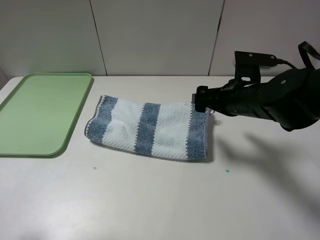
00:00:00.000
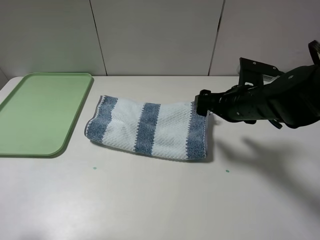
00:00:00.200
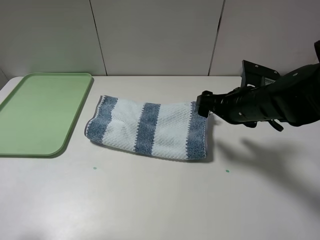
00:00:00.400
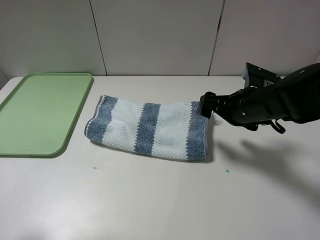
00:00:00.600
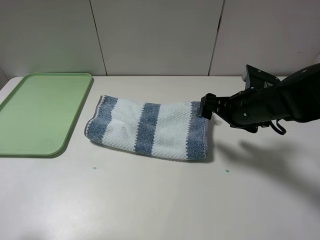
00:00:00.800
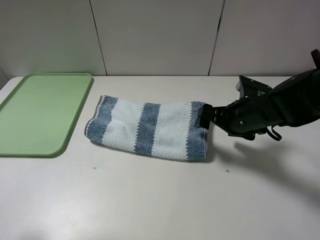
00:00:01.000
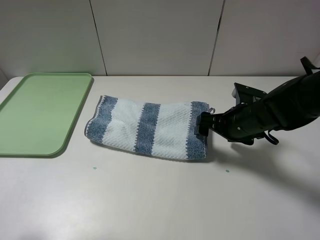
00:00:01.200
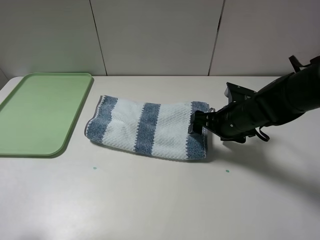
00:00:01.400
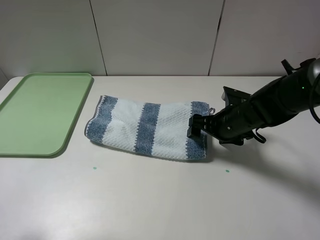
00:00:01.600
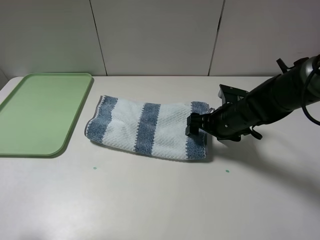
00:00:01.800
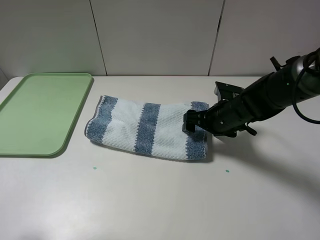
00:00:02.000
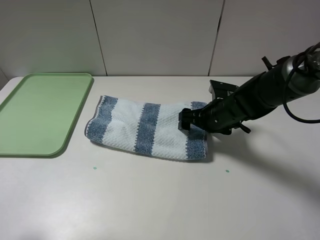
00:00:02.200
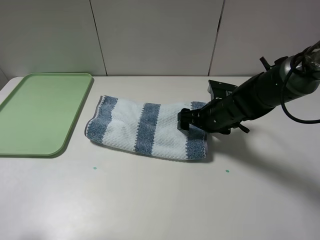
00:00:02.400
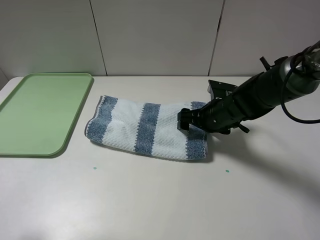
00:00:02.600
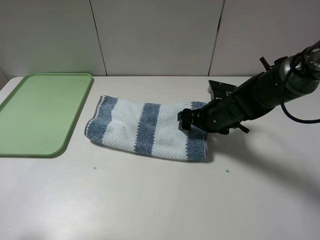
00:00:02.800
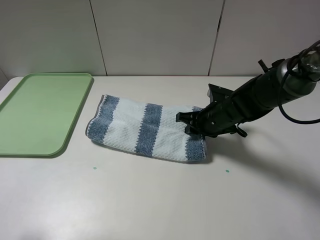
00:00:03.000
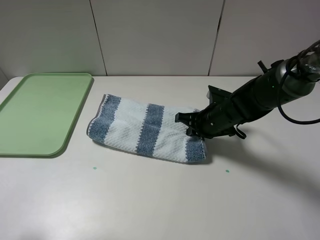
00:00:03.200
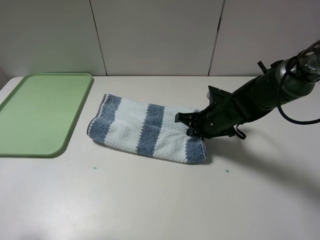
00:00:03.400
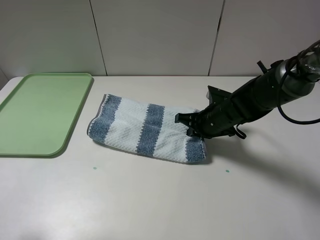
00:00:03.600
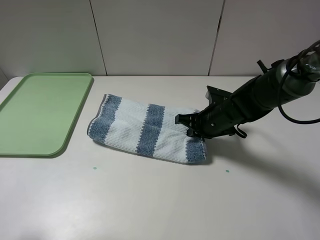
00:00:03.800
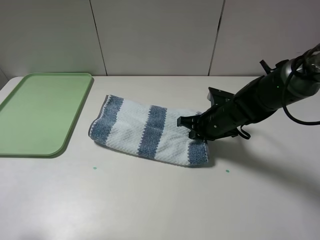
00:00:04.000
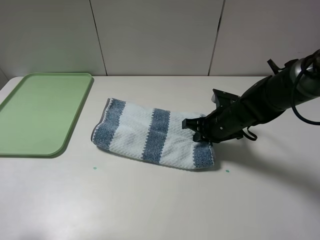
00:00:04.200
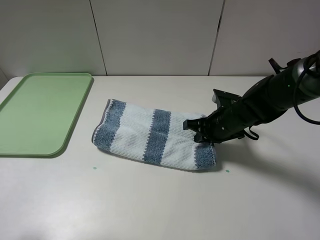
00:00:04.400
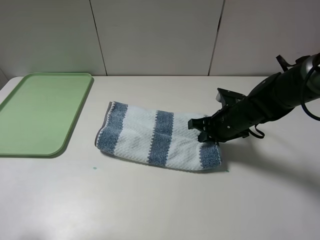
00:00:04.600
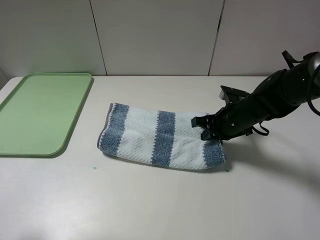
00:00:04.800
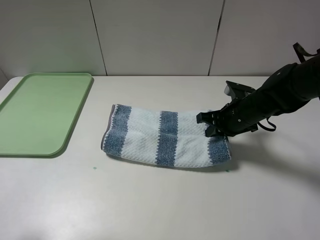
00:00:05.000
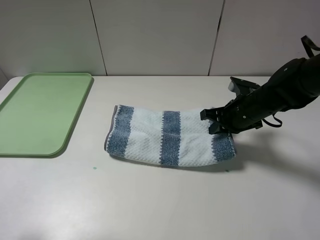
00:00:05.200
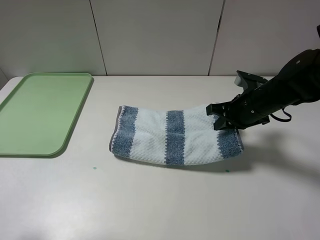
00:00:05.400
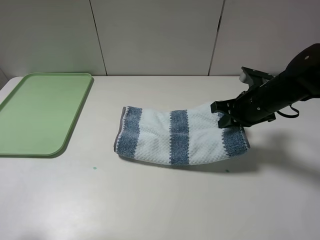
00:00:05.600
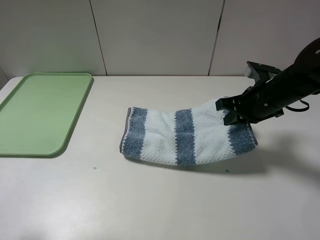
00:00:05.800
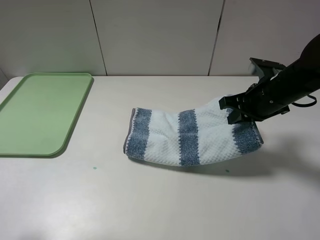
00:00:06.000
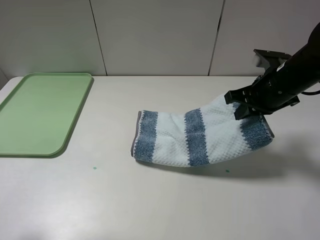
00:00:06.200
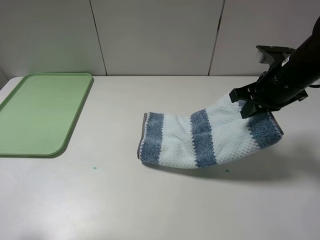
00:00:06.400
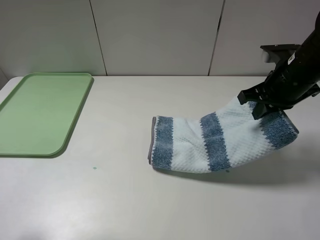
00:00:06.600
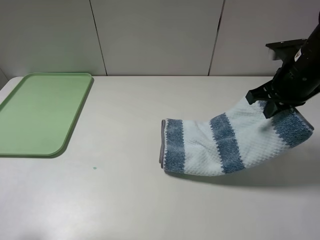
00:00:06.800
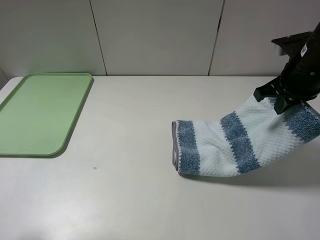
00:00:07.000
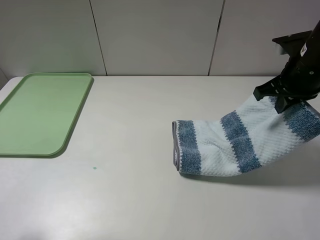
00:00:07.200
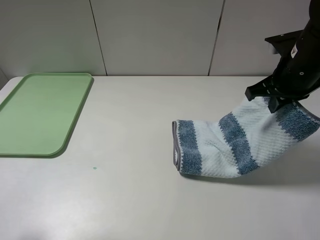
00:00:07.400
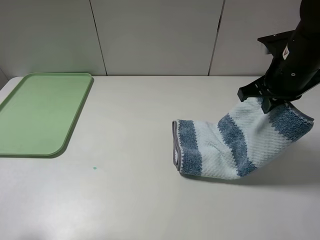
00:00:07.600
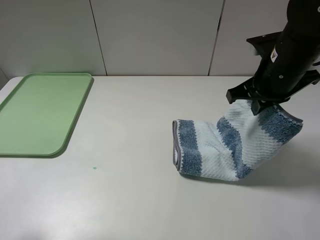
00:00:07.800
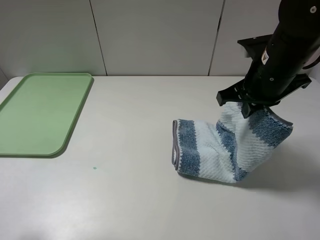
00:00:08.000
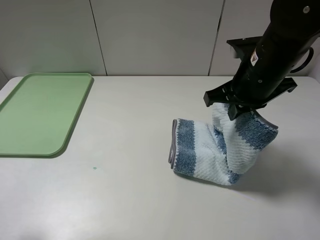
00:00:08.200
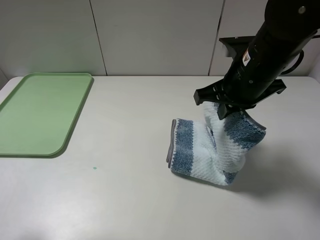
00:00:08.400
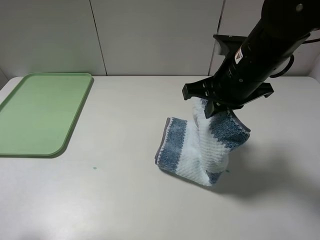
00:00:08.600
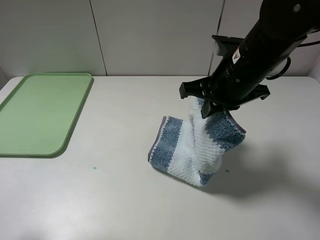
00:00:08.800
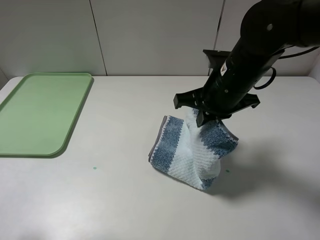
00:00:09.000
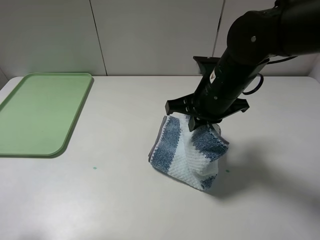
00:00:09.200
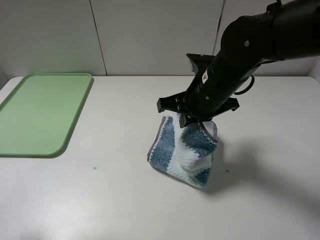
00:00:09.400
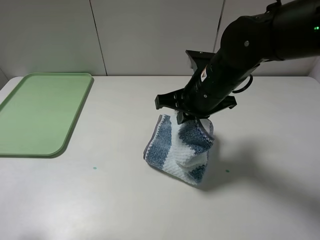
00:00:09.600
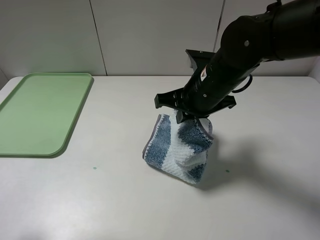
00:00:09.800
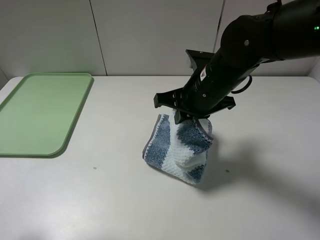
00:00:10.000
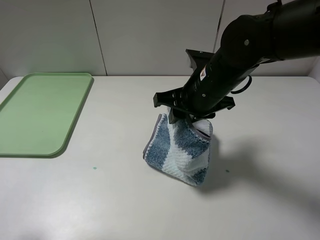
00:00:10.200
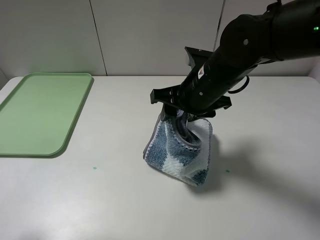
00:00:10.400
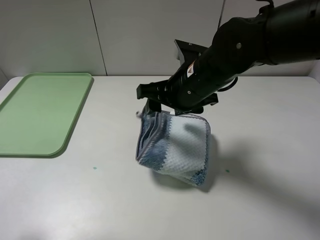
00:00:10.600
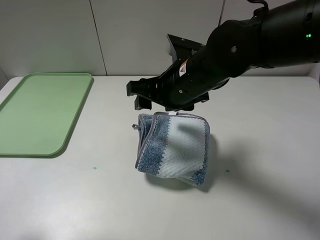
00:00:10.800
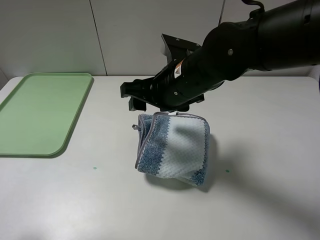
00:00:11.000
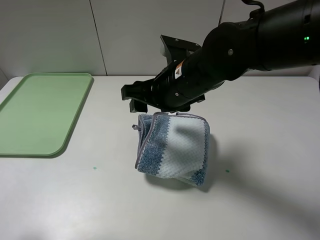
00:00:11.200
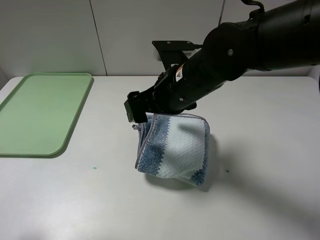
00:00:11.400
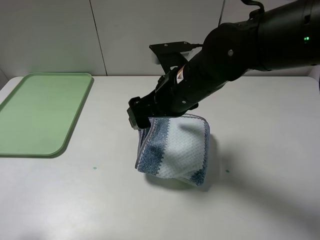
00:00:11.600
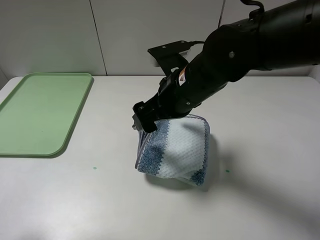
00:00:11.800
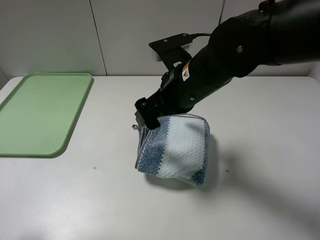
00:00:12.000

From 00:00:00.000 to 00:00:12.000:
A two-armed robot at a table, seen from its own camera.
Step, from 00:00:00.000 to 00:00:03.400: Grasp the blue white towel with the right gripper.
Step, from 00:00:03.600 to 00:00:10.600: Fold the blue white towel from right to left with right gripper.
From 00:00:00.000 to 00:00:01.600: The right gripper shifts some 5 cm downward.
From 00:00:01.600 to 00:00:03.000: The right gripper closes up.
From 00:00:03.000 to 00:00:04.400: The grippers make only small movements.
From 00:00:04.400 to 00:00:06.000: The right gripper goes approximately 10 cm upward and to the right.
From 00:00:06.000 to 00:00:07.600: The right gripper shifts approximately 5 cm upward.
From 00:00:07.600 to 00:00:09.000: The right gripper goes approximately 10 cm to the left.
From 00:00:09.000 to 00:00:10.400: The right gripper opens its fingers.

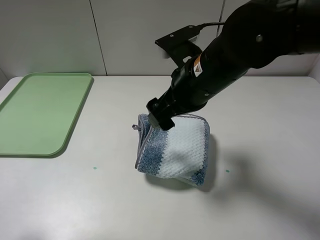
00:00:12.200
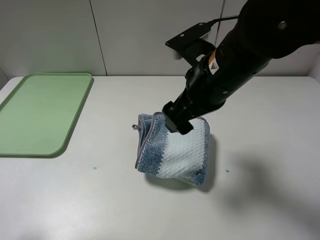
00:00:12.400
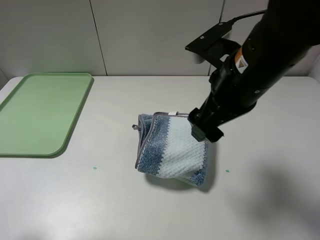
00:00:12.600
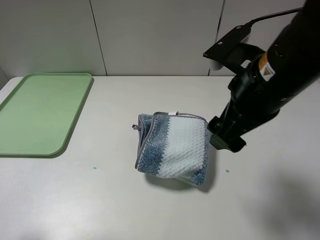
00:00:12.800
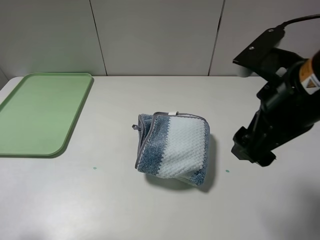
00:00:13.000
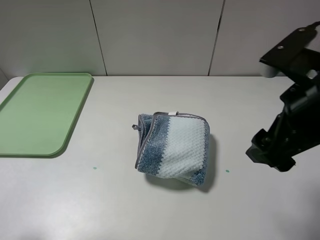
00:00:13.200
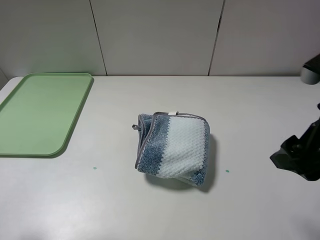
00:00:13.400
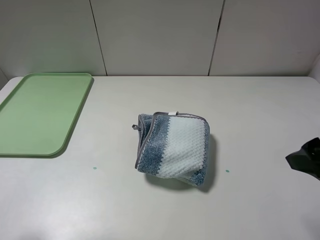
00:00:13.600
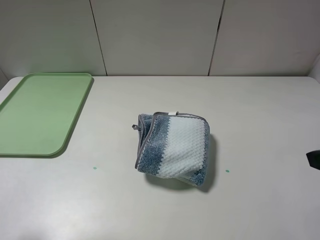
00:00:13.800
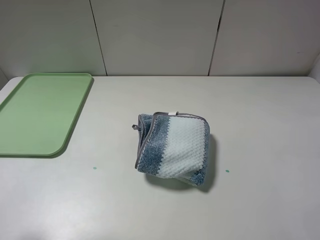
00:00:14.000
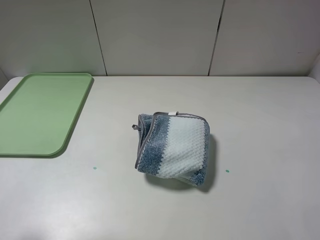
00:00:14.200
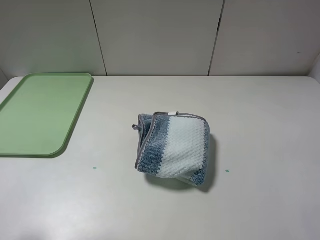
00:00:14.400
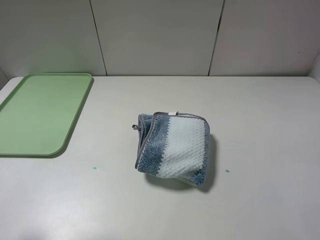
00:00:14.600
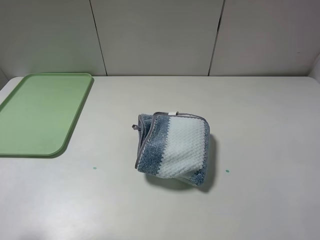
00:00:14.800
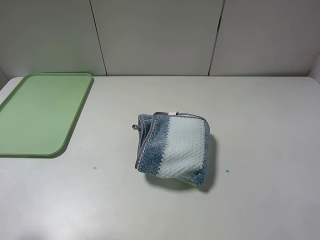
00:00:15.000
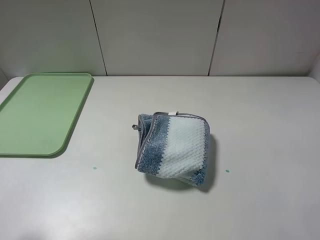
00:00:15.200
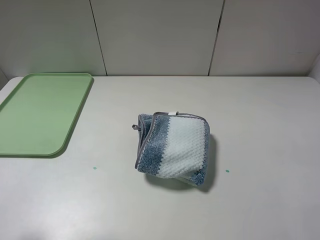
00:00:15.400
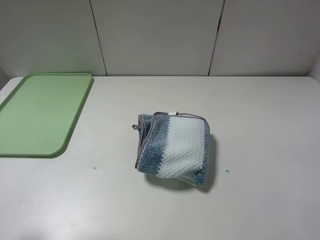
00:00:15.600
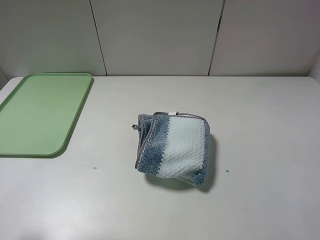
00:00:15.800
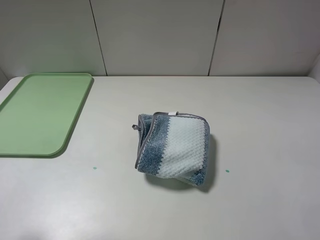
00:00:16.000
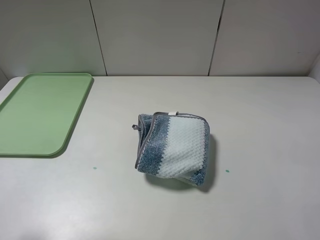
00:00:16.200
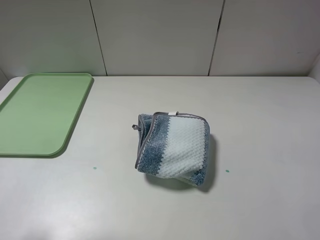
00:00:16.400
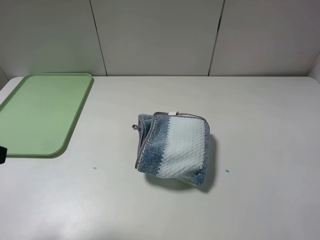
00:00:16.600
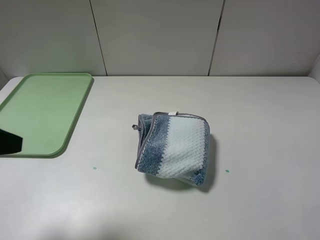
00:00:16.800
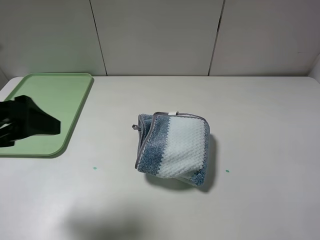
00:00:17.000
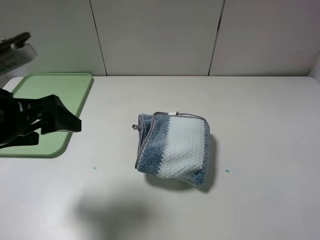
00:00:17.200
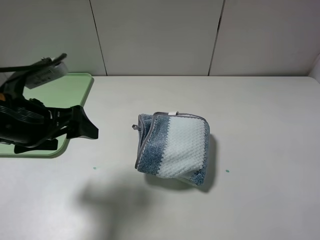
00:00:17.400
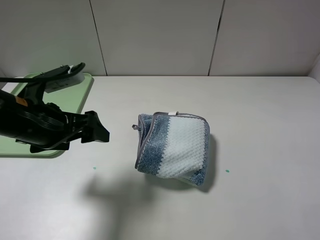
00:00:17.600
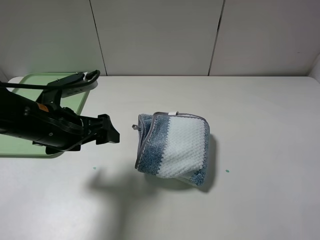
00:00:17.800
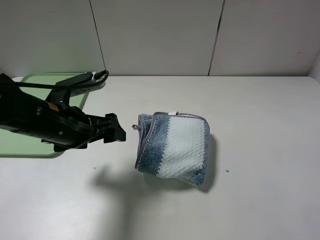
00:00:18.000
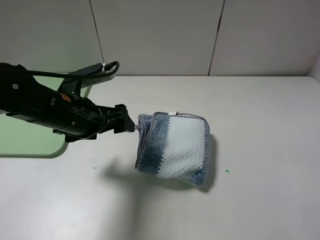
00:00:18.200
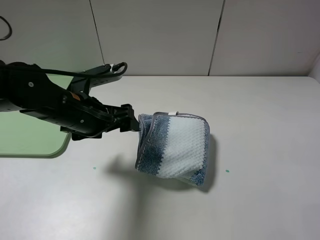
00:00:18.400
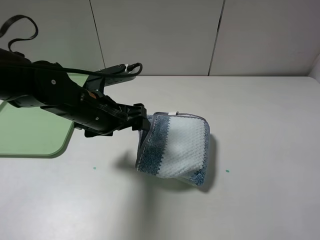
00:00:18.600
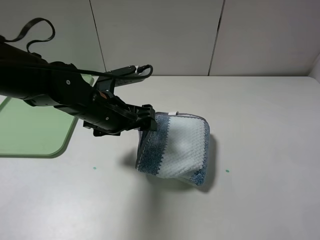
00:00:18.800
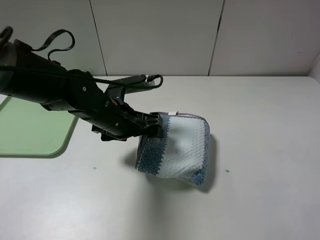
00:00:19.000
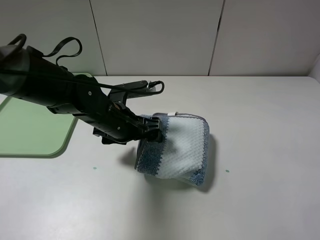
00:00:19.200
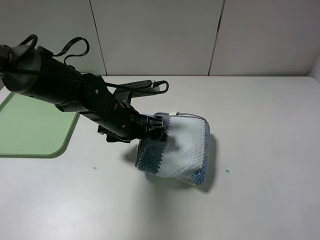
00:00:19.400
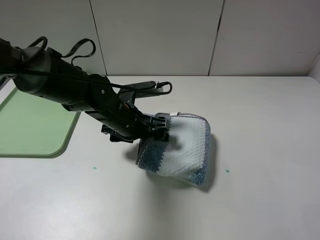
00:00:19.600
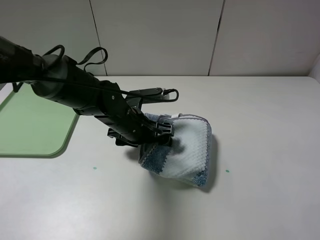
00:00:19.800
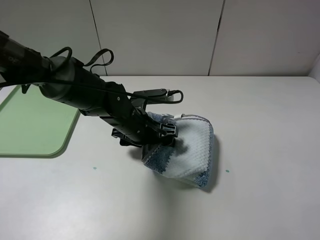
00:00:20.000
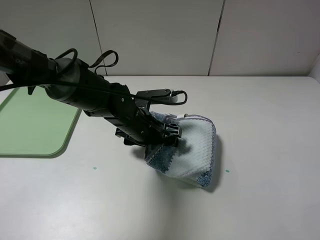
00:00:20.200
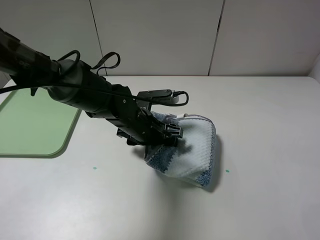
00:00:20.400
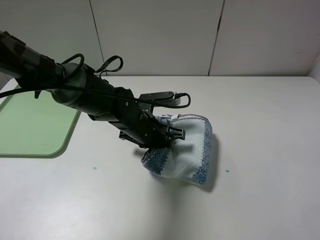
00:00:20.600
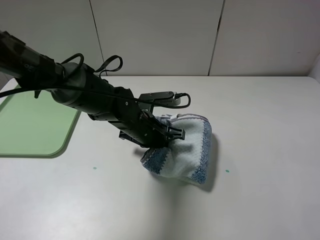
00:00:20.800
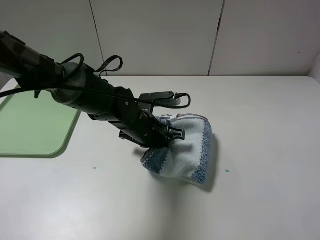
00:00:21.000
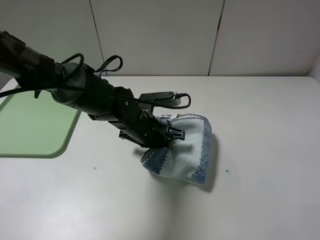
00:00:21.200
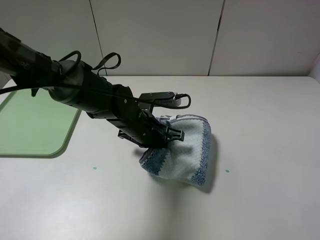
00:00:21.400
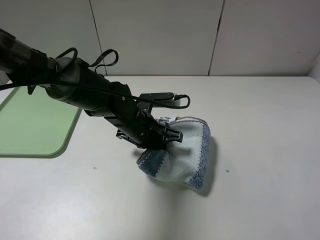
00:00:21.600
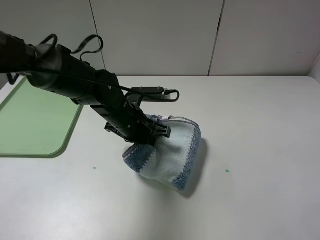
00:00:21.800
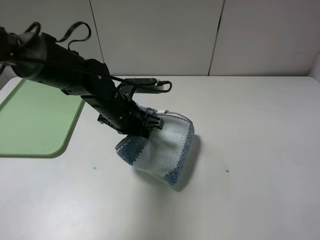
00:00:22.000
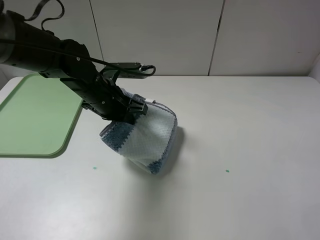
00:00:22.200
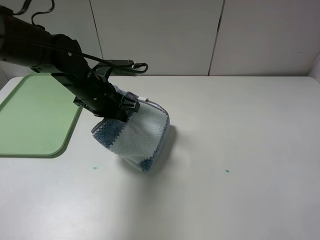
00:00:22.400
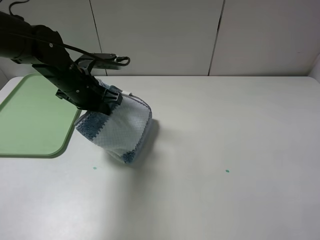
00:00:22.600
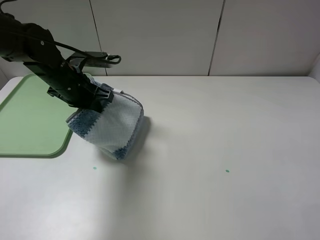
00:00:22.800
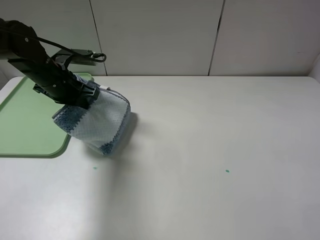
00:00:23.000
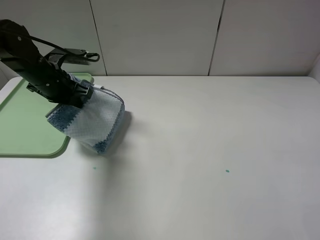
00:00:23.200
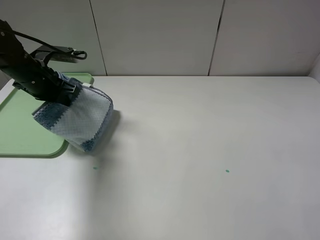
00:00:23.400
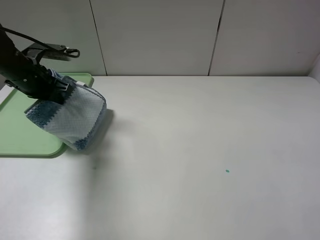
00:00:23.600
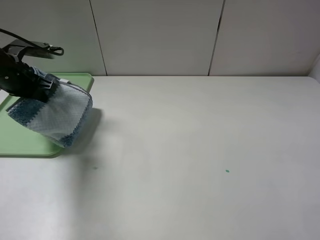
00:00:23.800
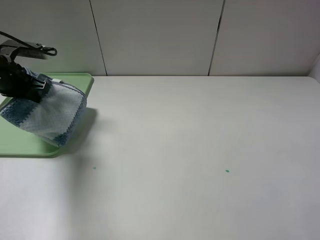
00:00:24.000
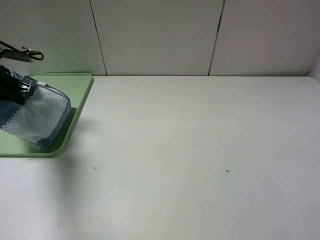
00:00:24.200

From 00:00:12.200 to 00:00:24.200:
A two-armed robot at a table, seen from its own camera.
Step, from 00:00:12.200 to 00:00:21.200: Grasp the blue white towel with the left gripper.
From 00:00:12.200 to 00:00:13.800: The right gripper heads to the right and backward, covering about 25 cm.
From 00:00:16.600 to 00:00:18.200: The left gripper heads forward, to the right and downward, covering about 20 cm.
From 00:00:18.200 to 00:00:19.800: The left gripper heads to the right, downward and forward, covering approximately 15 cm.
From 00:00:19.800 to 00:00:21.200: The left gripper closes up.
From 00:00:21.200 to 00:00:22.600: The left gripper is displaced to the left and upward by roughly 15 cm.
From 00:00:22.600 to 00:00:24.200: The left gripper shifts about 20 cm to the left.
